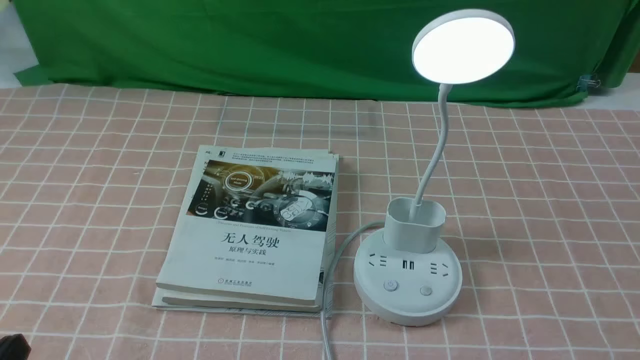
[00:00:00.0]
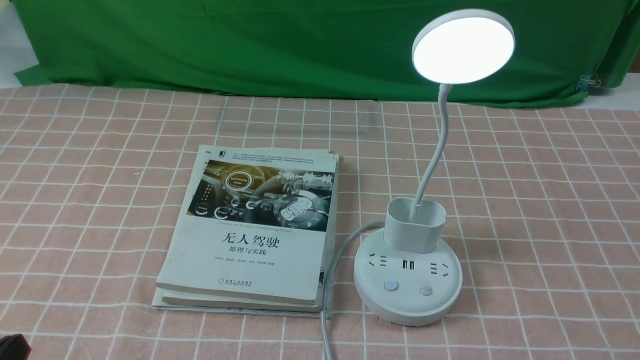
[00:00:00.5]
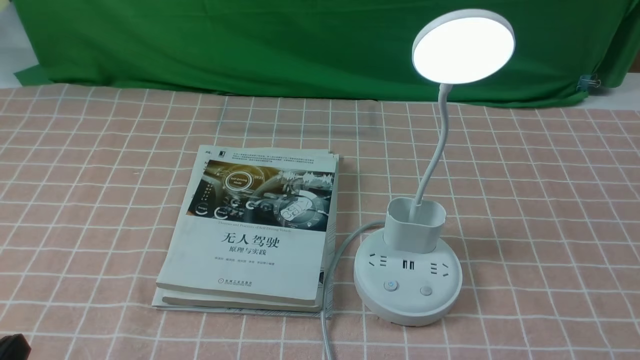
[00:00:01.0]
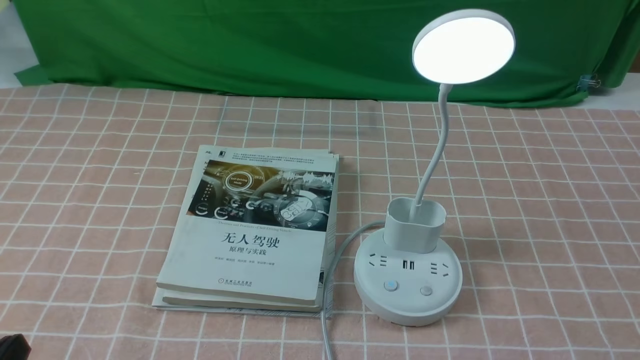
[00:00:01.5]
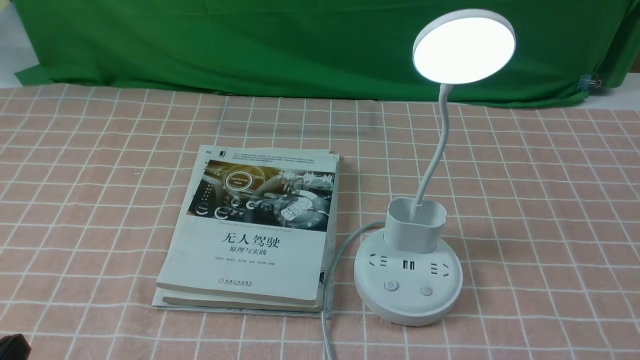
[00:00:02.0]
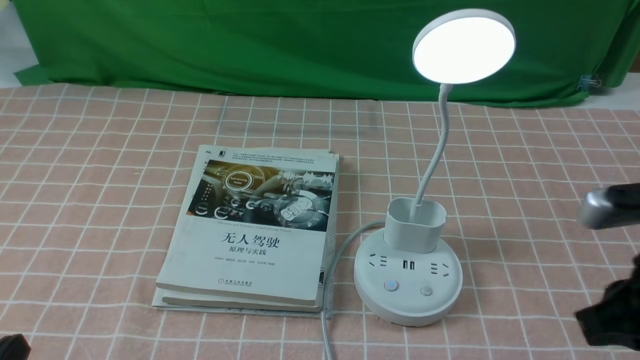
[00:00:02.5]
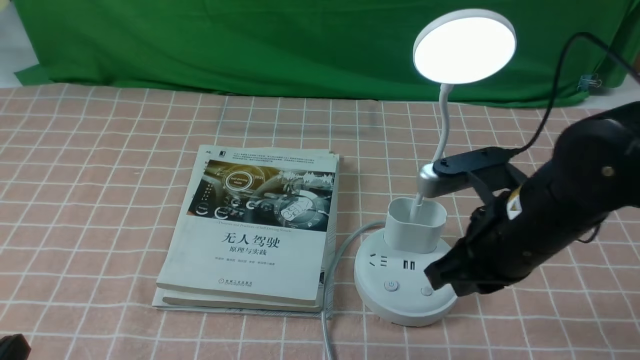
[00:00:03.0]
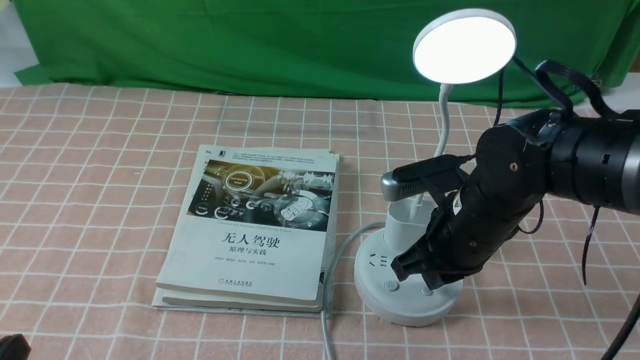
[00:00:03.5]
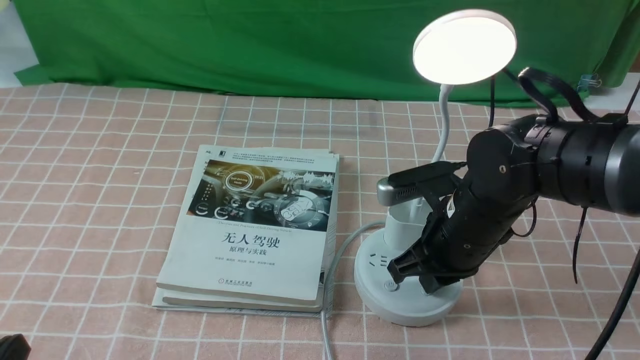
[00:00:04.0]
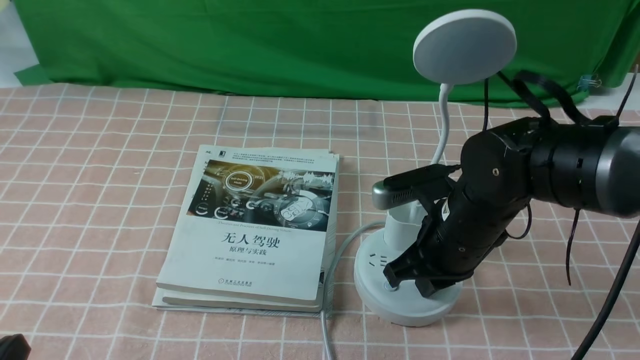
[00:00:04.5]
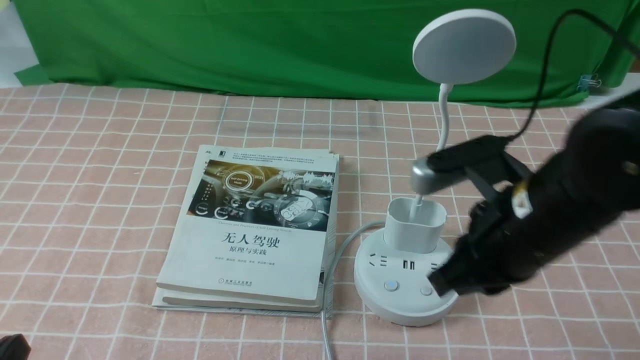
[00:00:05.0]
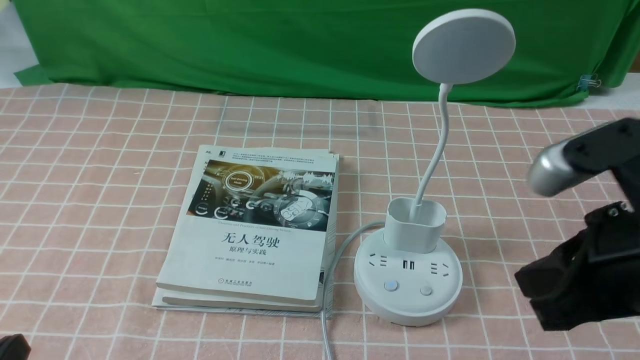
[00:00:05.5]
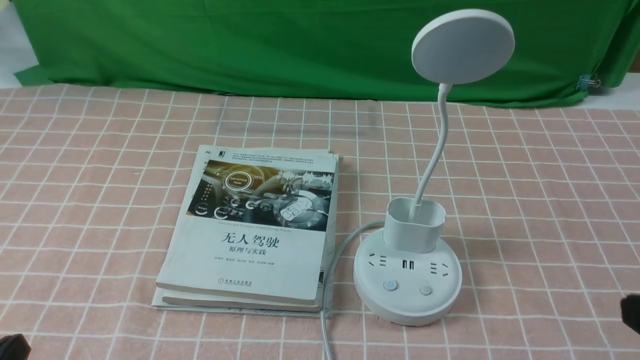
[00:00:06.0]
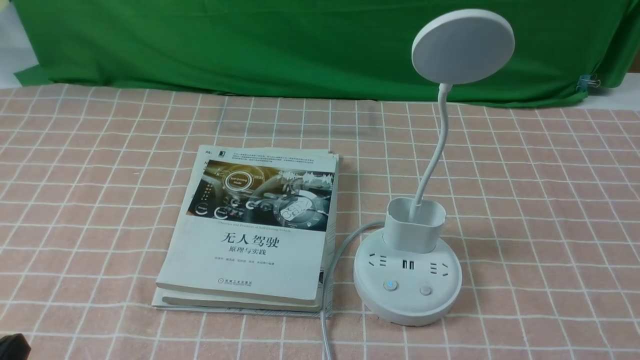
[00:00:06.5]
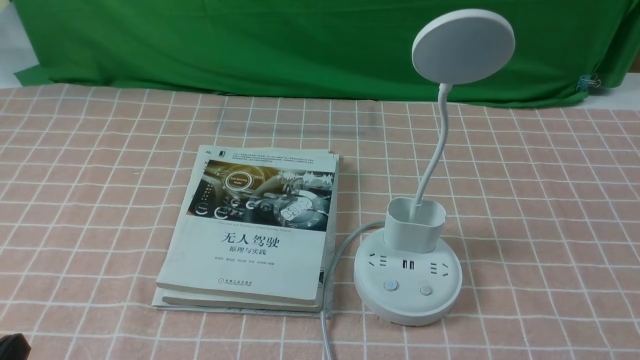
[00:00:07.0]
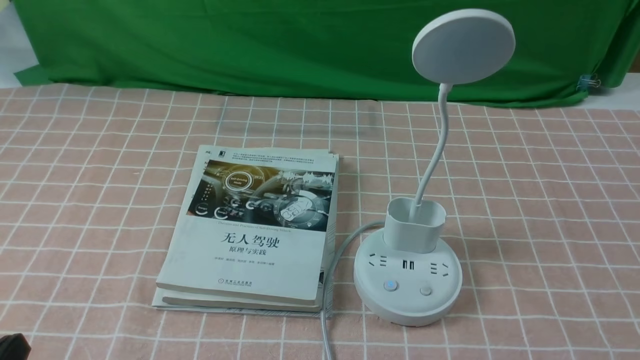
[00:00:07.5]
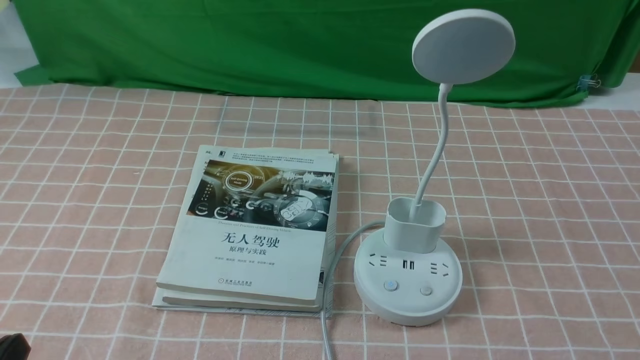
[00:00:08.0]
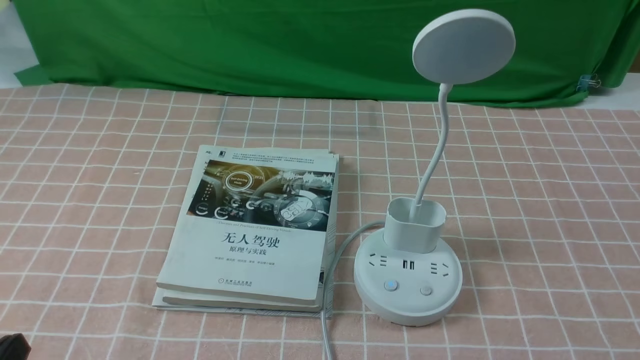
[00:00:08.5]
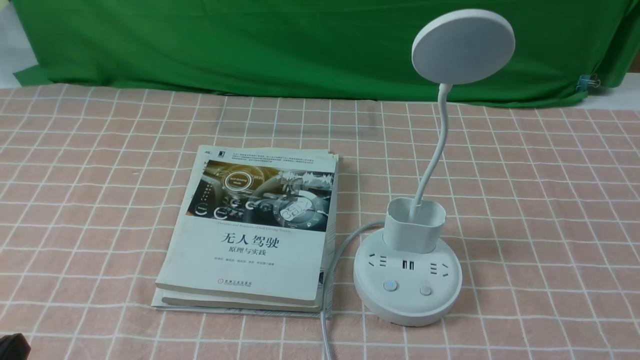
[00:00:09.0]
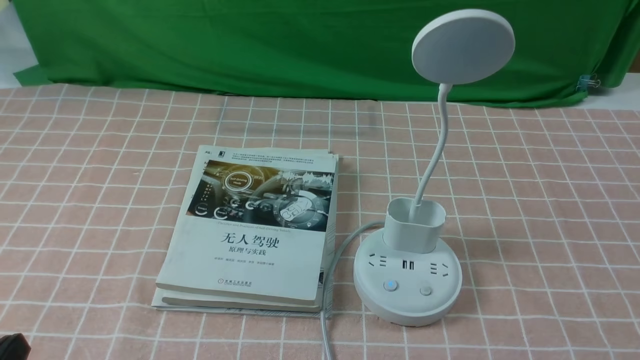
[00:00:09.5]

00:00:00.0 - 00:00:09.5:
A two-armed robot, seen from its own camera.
Task of the whole recording: turn off the table lamp on the pink coffee tablecloth by hand.
Step, 00:00:00.0 - 00:00:04.5: use the right arm to press the button switch on the lamp holder.
00:00:02.0 - 00:00:04.0: The right gripper heads forward and to the left, covering about 30 cm.
00:00:04.0 - 00:00:05.5: The right gripper shifts about 20 cm backward, upward and to the right.
00:00:05.5 - 00:00:07.5: The right gripper moves downward, to the right and backward, approximately 20 cm.
